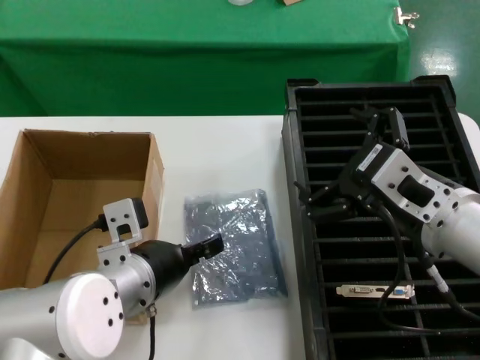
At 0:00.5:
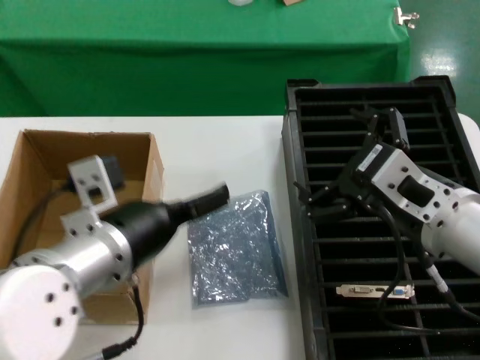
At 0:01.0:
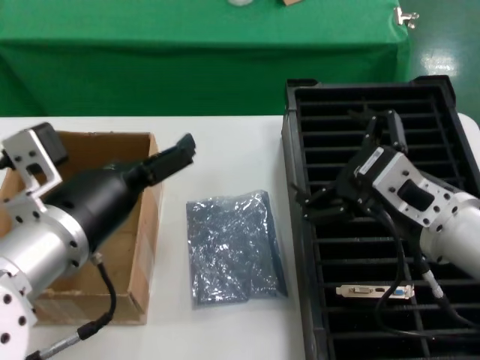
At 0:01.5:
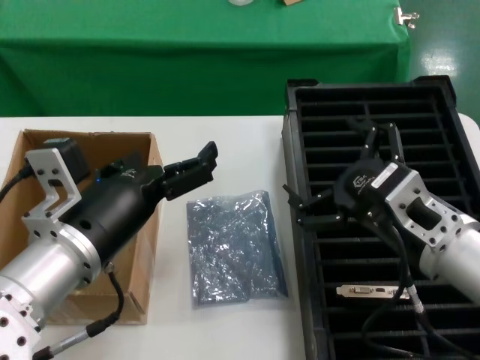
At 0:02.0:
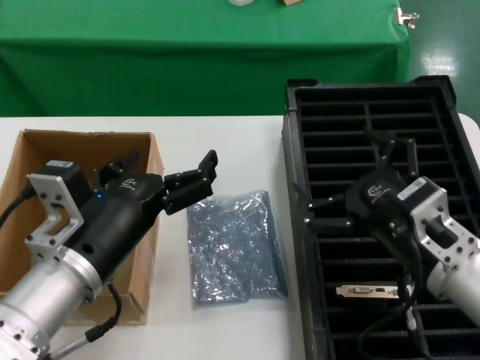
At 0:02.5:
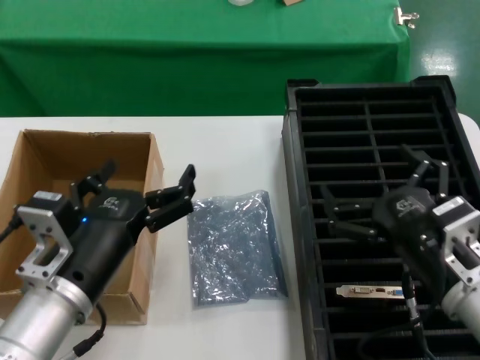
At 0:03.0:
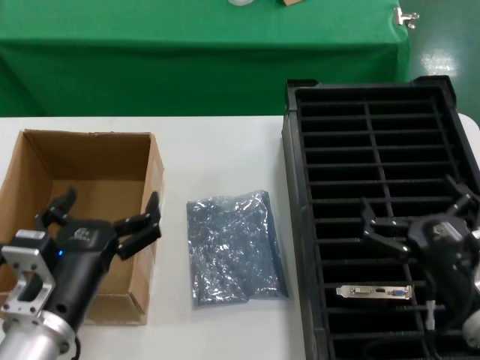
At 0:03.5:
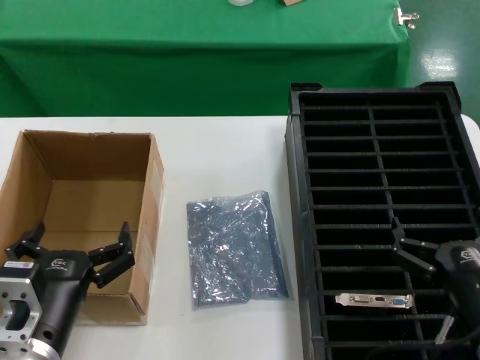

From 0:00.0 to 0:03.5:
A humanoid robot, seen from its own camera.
Task of the whole recording: take out graphics card from box remove packaging put into black container.
From 0:00.0 to 0:02.0: The right hand shifts some 5 cm downward. The left hand shifts some 5 cm backward, and moves approximately 10 cm upward and comes back.
From 0:02.0 to 0:03.5: Both hands travel together downward, some 10 cm.
